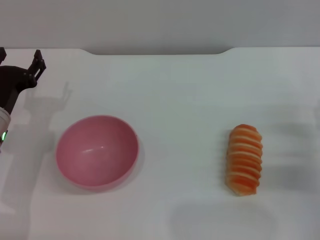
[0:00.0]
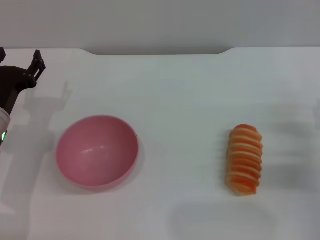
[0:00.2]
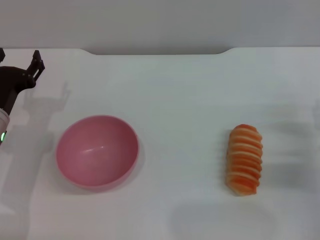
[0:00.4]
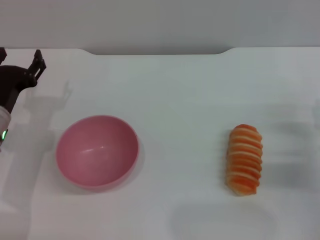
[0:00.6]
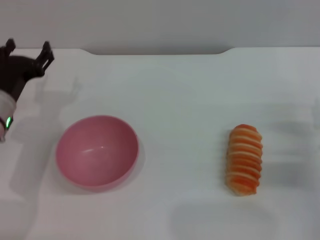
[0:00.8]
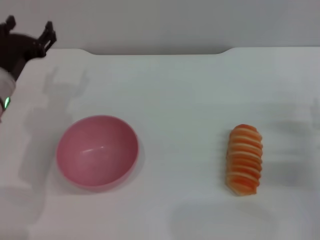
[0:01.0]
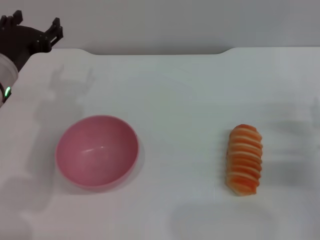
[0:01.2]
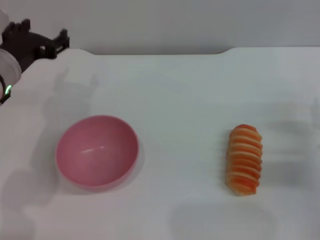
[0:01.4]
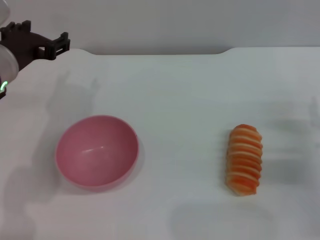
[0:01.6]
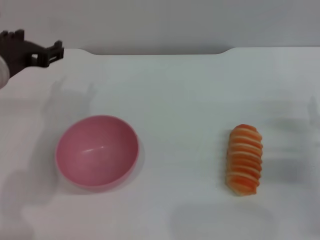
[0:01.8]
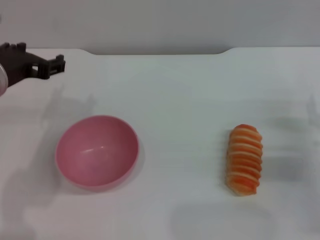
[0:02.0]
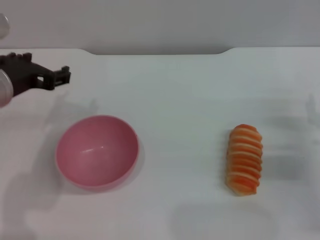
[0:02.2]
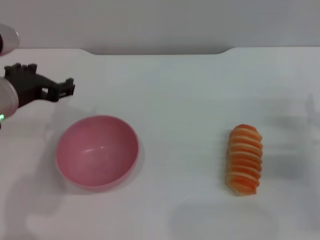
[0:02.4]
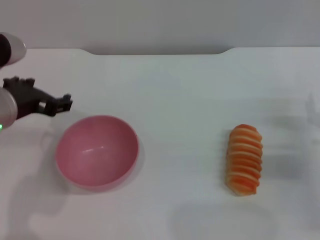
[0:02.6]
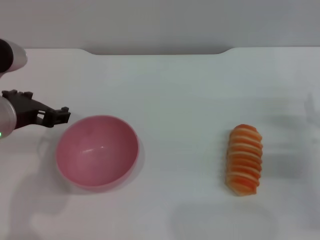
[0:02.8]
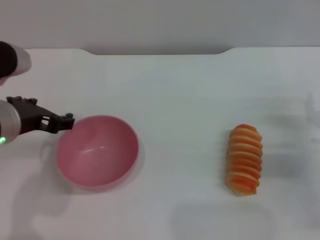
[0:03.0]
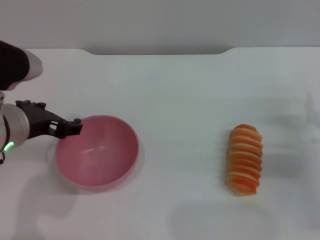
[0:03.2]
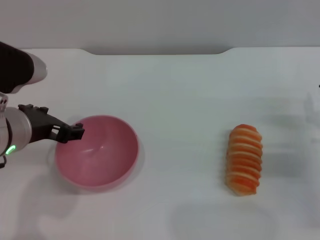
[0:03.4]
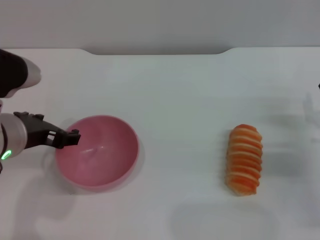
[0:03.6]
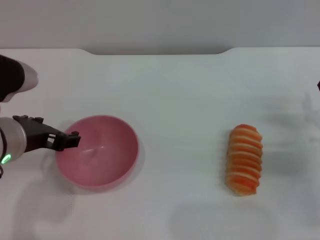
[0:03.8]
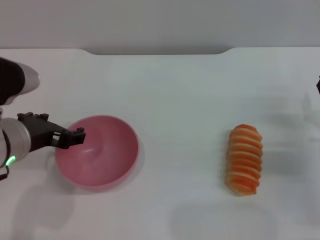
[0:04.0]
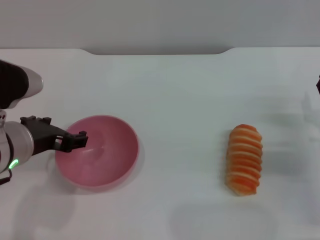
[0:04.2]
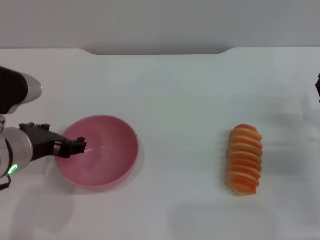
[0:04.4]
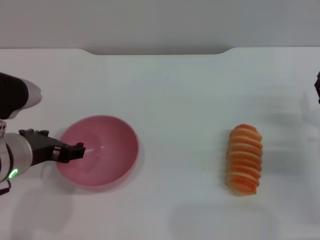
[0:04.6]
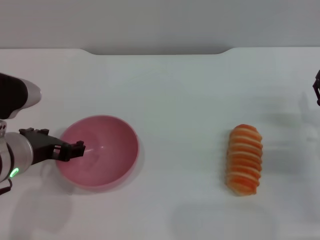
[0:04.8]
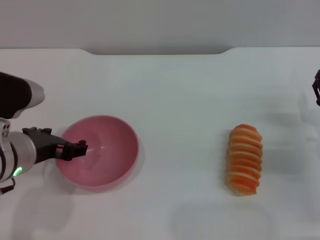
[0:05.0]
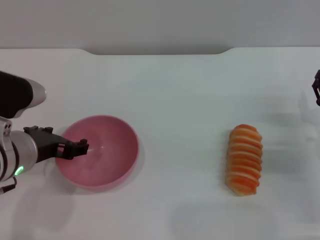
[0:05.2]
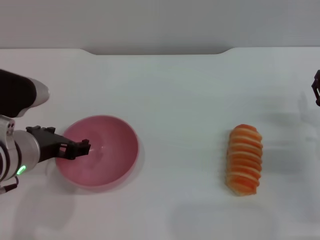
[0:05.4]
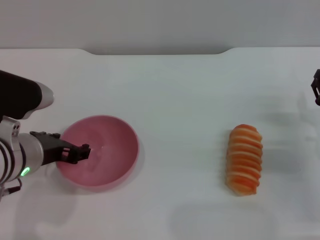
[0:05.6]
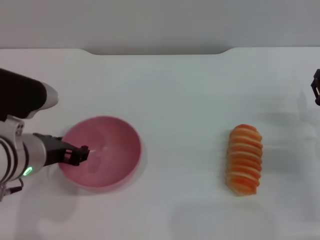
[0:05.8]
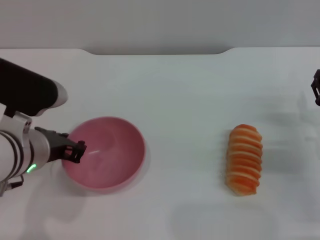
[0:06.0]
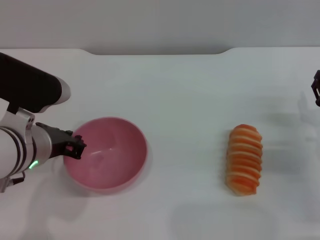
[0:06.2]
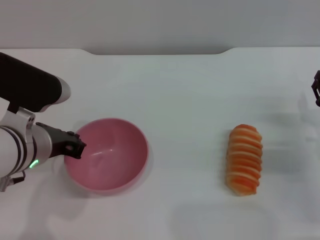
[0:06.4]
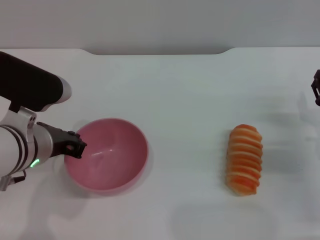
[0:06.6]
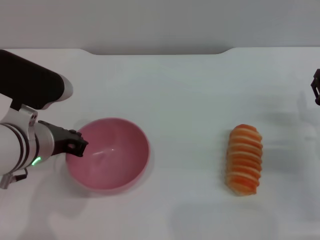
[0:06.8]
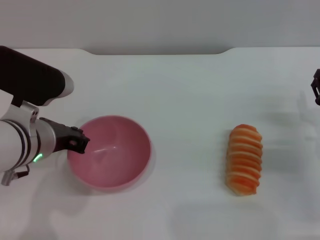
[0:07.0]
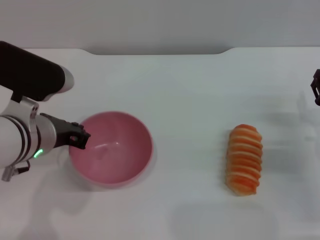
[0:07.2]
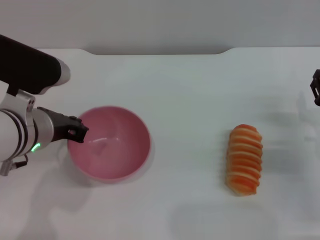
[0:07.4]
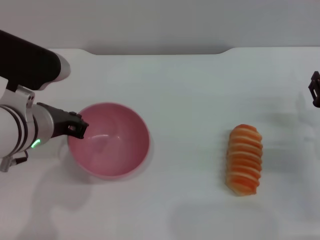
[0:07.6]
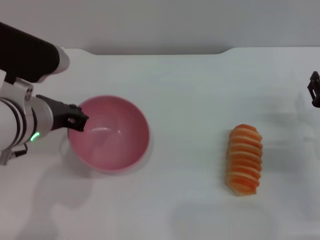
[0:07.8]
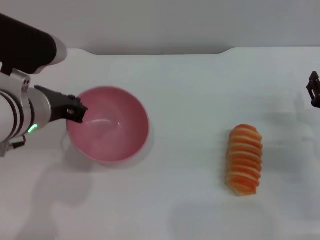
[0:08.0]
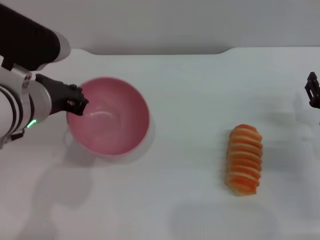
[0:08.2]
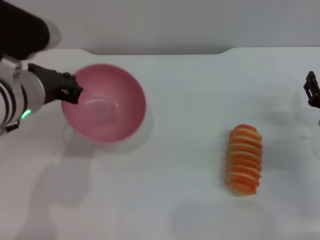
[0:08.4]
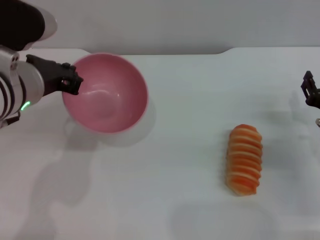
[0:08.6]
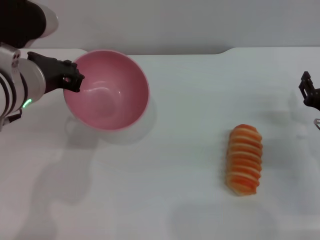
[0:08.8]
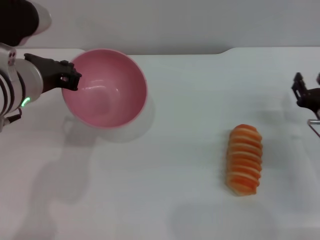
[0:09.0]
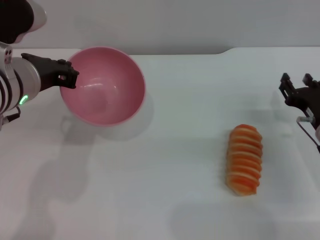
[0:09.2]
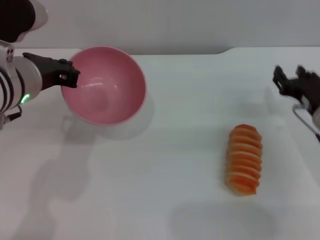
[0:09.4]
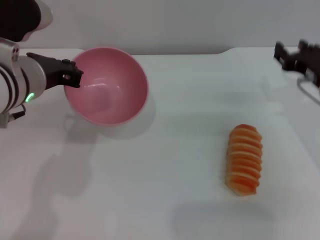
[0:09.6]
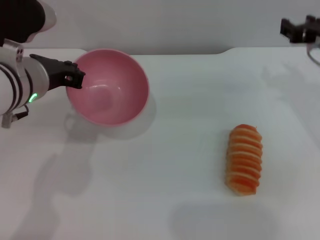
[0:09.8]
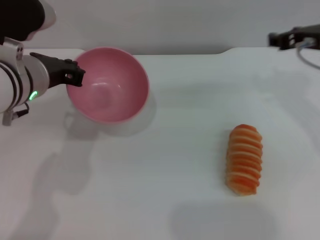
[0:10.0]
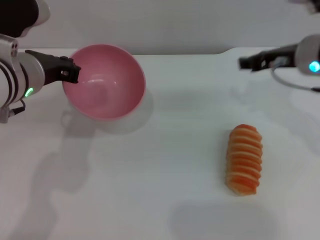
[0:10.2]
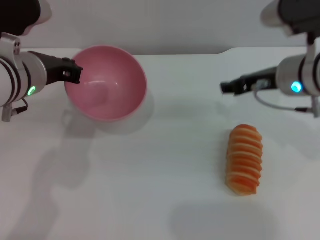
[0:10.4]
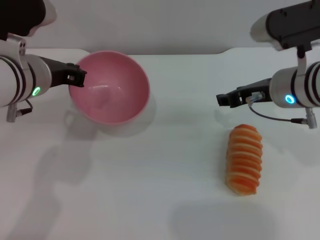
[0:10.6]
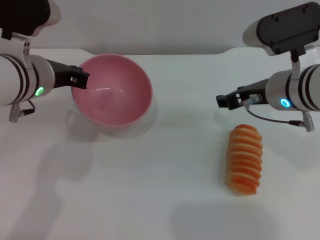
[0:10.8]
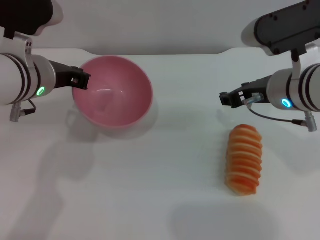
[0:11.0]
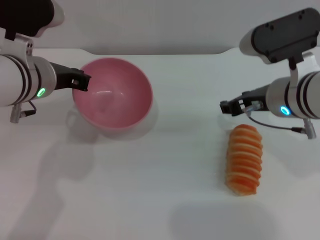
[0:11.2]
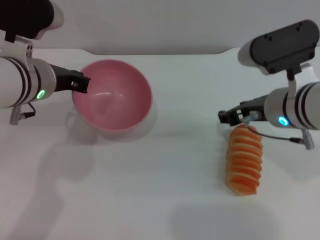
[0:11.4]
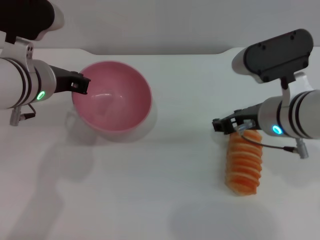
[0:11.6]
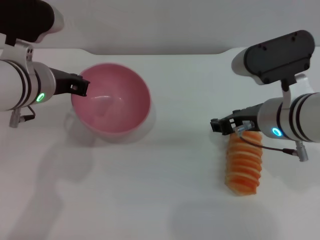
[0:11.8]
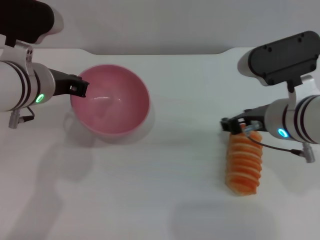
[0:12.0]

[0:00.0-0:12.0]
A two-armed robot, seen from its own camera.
Task of the whole recording: put the bread into the pink bowl and pour it out repeatedly.
Step, 0:00.0 to 0:08.4: Pick up the bowl with the left gripper.
0:00.0 to 0:01.6: The left gripper is displaced upward by roughly 10 cm.
0:01.6 to 0:03.0: The left gripper goes about 5 cm backward.
0:03.0 to 0:06.0: The grippers make only small movements.
0:06.0 to 0:07.6: The left gripper closes.
0:09.0 to 0:10.4: The right gripper shifts about 20 cm upward, to the left and forward.
0:10.4 to 0:12.0: The right gripper goes some 5 cm backward.

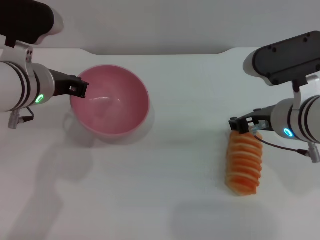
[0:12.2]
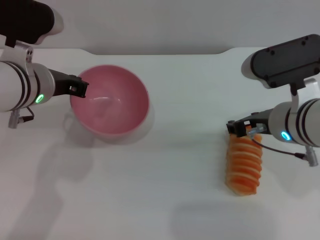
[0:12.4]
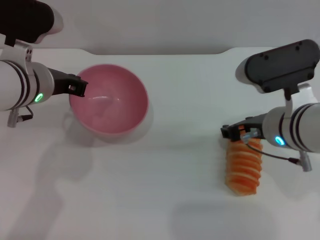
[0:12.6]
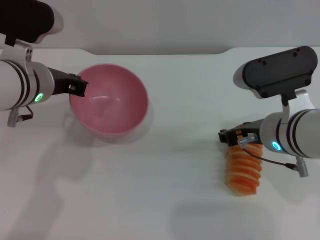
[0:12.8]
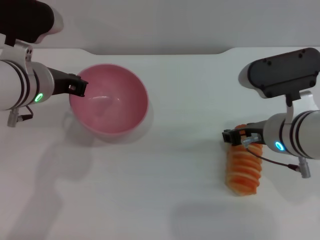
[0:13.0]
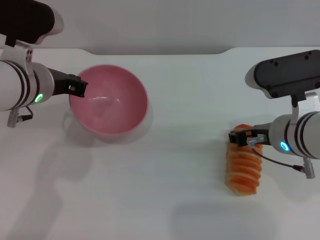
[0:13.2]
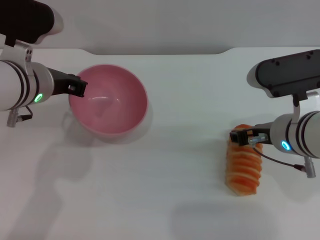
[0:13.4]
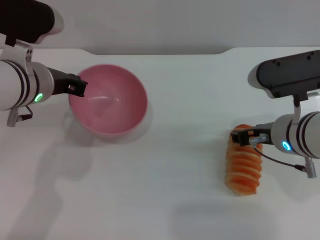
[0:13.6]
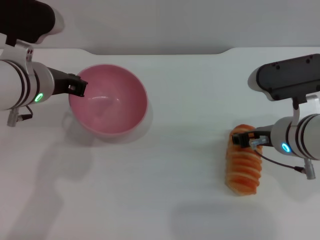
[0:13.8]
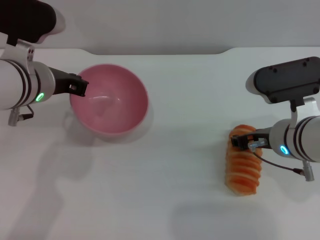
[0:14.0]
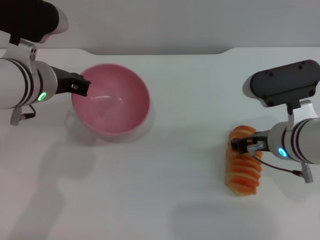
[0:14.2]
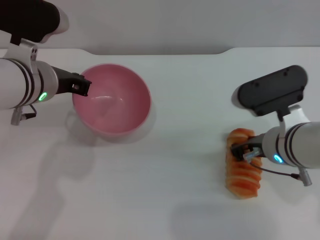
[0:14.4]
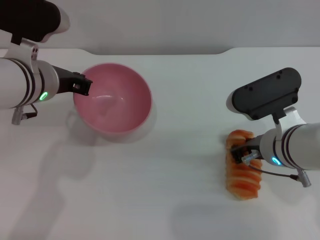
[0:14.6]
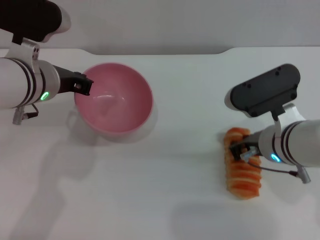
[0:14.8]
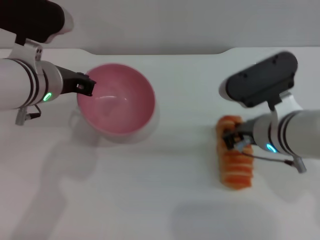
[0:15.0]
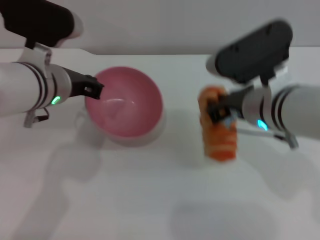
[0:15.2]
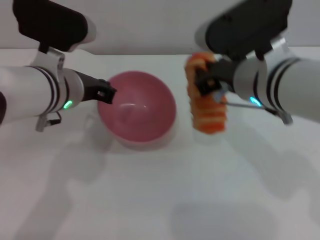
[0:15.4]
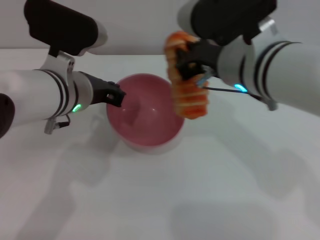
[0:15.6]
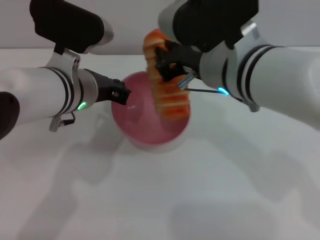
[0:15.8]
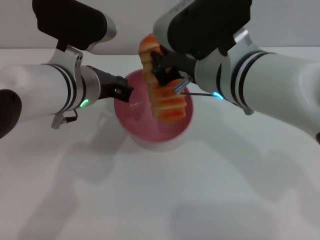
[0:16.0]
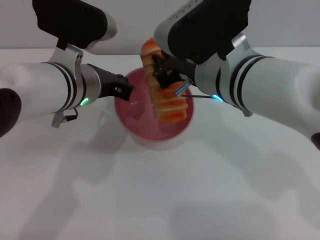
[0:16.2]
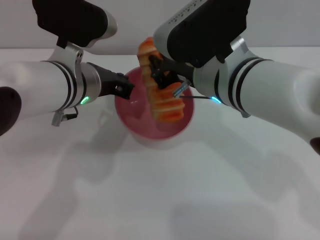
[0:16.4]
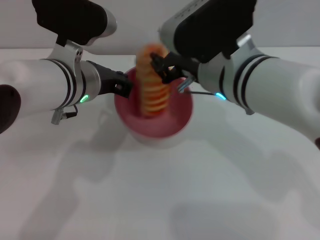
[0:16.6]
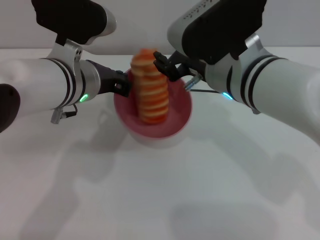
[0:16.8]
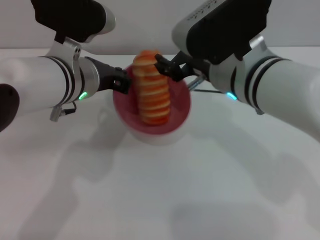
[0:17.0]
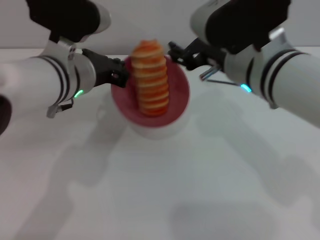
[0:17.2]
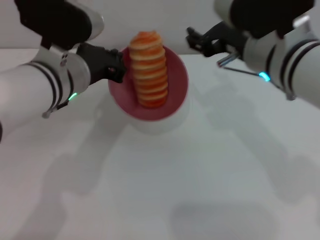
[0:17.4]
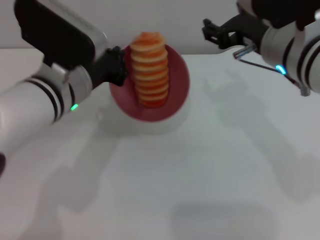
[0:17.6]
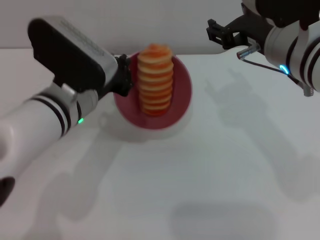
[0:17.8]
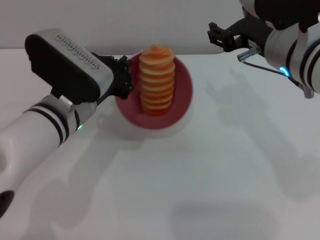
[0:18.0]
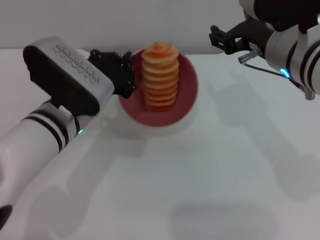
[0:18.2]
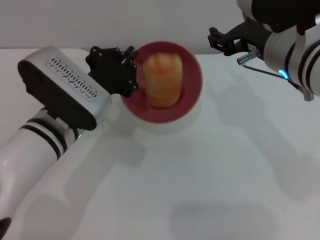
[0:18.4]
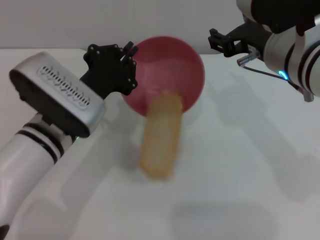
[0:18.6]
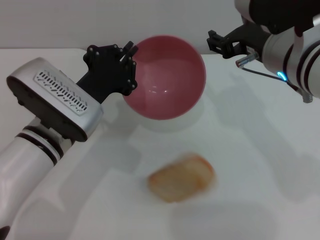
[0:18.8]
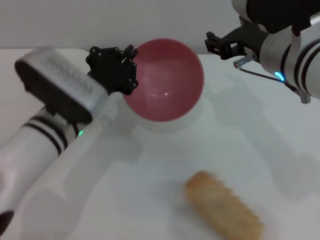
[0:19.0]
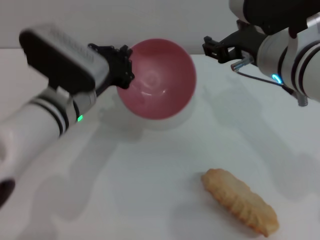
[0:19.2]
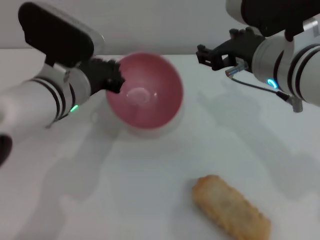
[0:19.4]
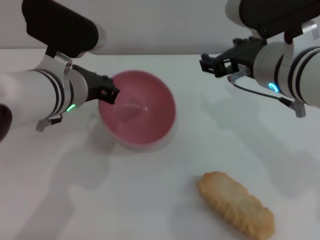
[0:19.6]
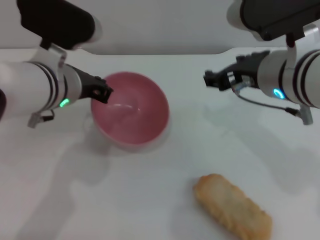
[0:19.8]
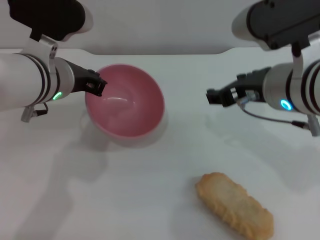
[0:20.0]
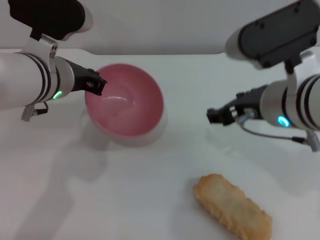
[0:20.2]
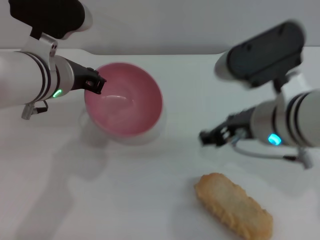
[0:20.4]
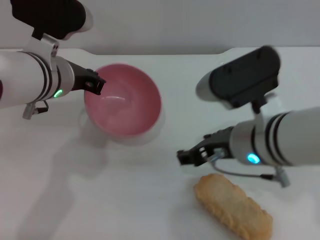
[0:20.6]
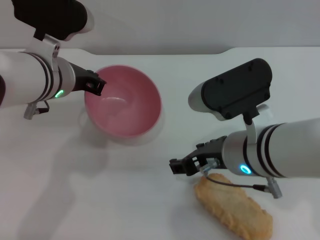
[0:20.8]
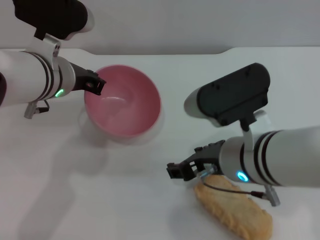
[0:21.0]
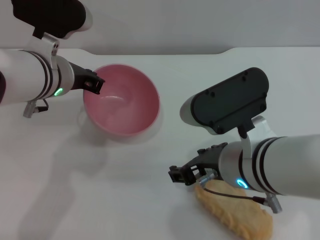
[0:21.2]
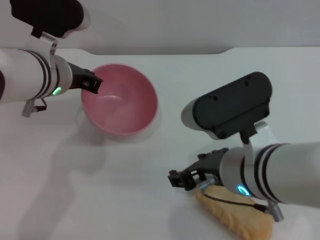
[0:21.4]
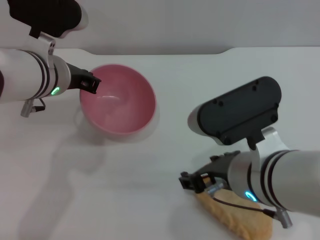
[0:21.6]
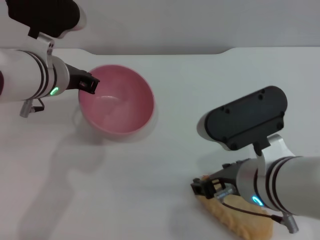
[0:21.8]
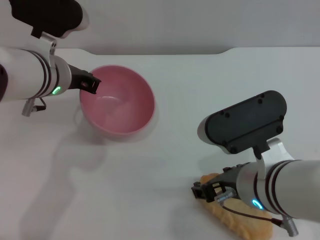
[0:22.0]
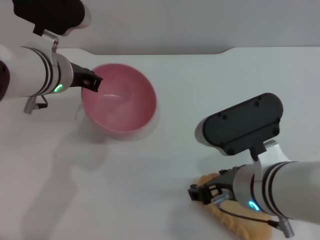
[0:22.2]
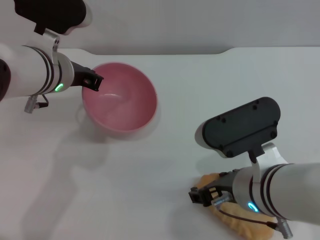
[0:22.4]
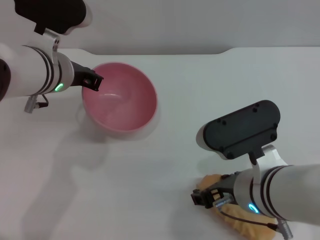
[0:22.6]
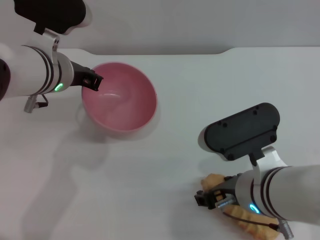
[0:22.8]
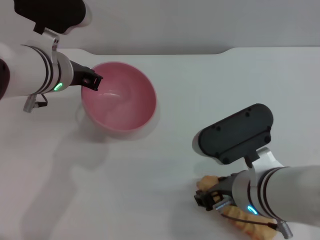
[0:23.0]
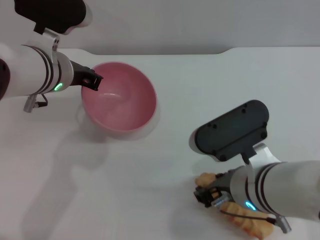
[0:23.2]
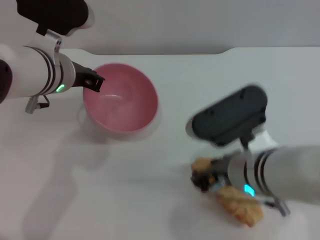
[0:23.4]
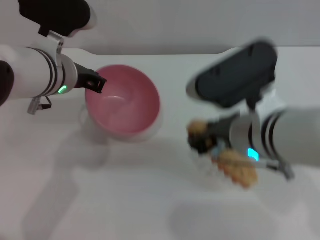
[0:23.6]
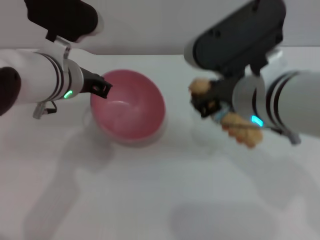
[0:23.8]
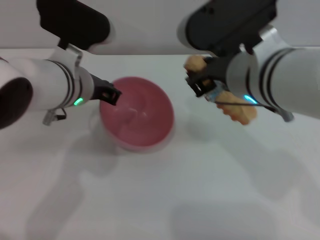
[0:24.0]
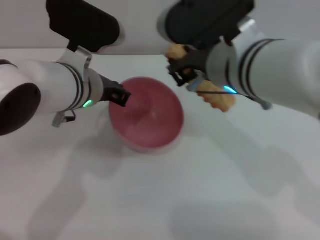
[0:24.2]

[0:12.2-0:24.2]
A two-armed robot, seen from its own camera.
Task of the whole recording: put the bread into the pink bowl and pour it out repeatedly.
Step, 0:12.2 to 0:15.2: Pick up the bread with the right gripper.
Step, 0:15.4 to 0:17.0: Place the bread into the bowl.
Step, 0:17.2 to 0:19.2: Pour the bread out of the bowl.
Step, 0:19.4 to 0:23.6: Pick up the bread with the right gripper.
0:12.2 to 0:13.8: The grippers make only small movements.
0:13.8 to 0:15.2: The right gripper moves upward, approximately 5 cm, and closes its fingers.
0:15.2 to 0:16.6: The right gripper changes place by some 5 cm.
0:16.6 to 0:18.2: The right gripper shifts some 5 cm to the right, and opens. Meanwhile the left gripper goes some 5 cm downward.
0:18.2 to 0:19.8: The left gripper goes roughly 5 cm upward.
0:19.8 to 0:21.2: The right gripper is displaced backward and downward by some 10 cm.
0:22.6 to 0:24.2: The right gripper goes some 15 cm upward and forward, and closes up.
